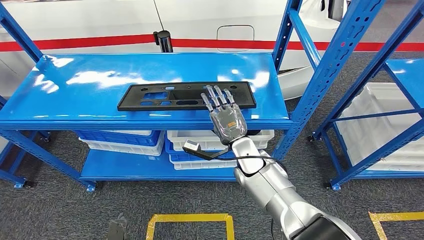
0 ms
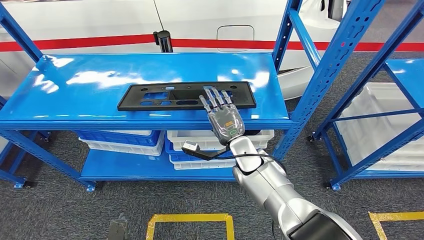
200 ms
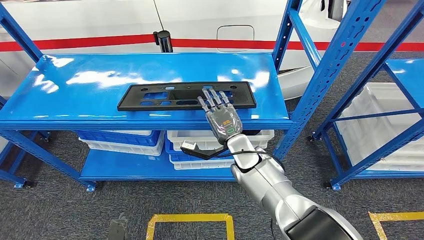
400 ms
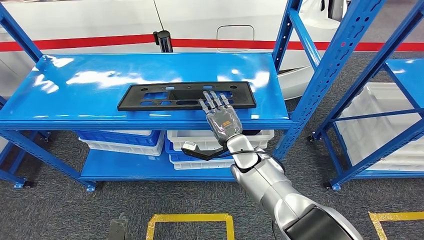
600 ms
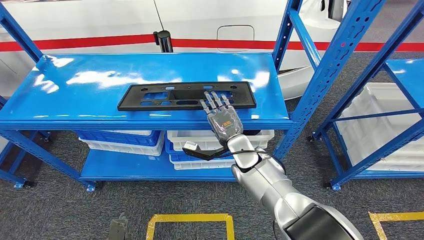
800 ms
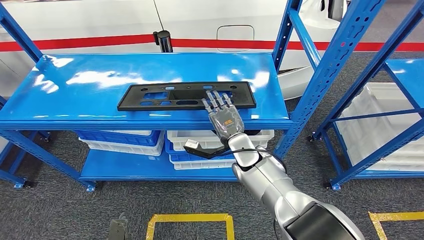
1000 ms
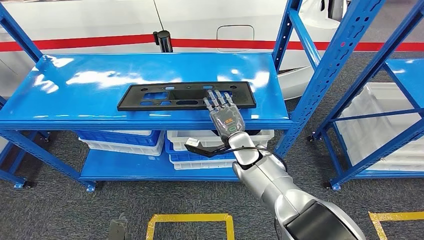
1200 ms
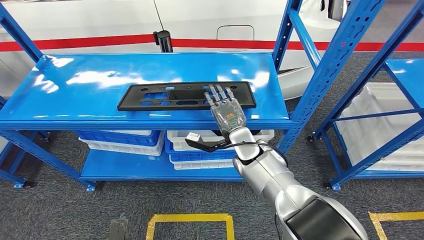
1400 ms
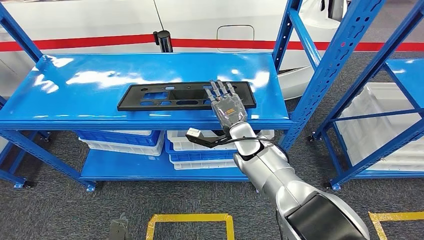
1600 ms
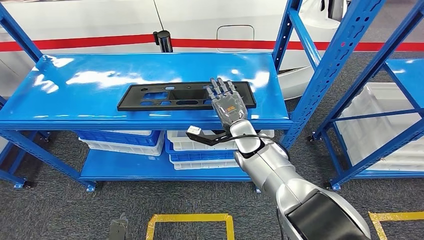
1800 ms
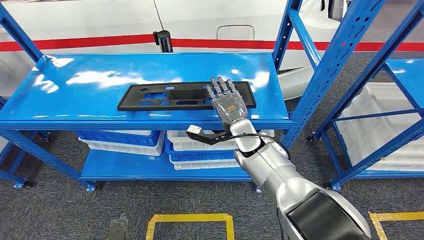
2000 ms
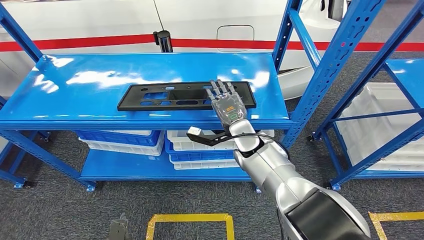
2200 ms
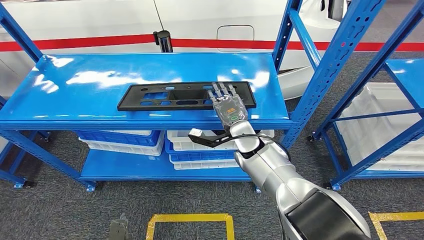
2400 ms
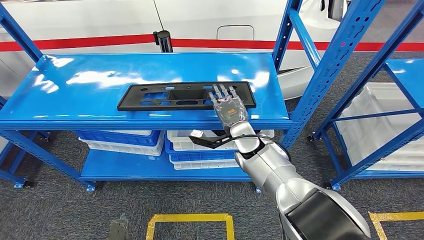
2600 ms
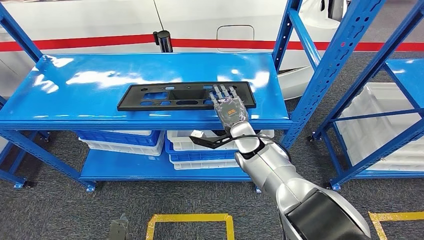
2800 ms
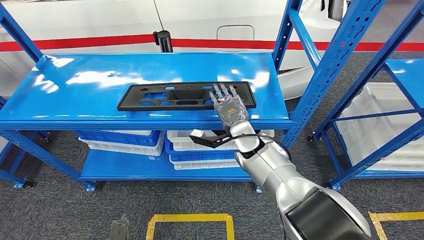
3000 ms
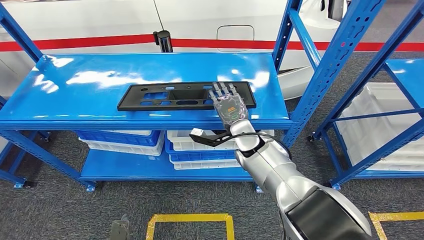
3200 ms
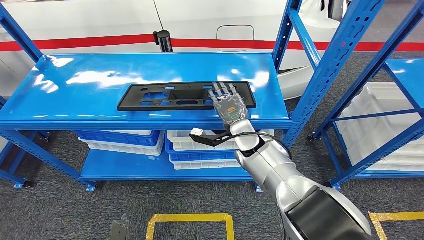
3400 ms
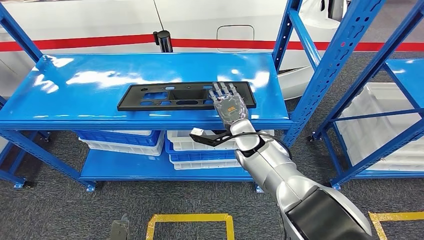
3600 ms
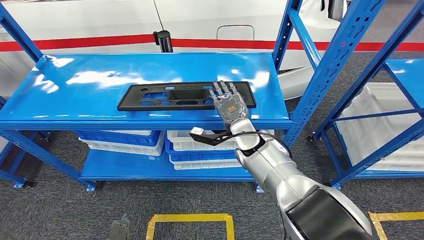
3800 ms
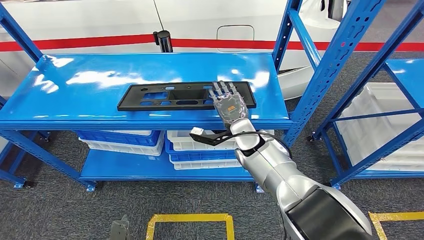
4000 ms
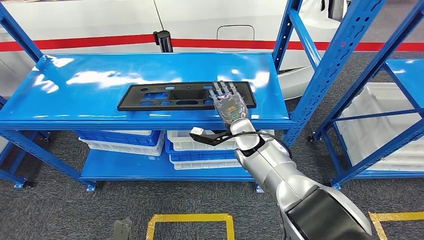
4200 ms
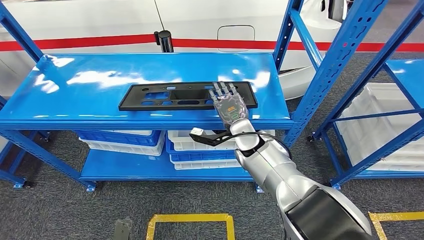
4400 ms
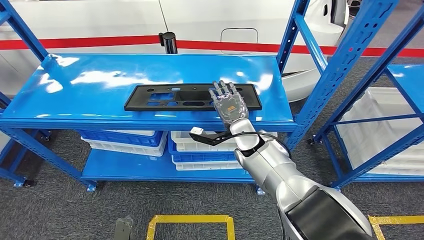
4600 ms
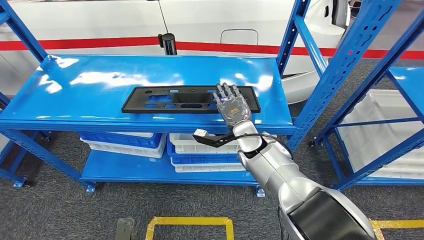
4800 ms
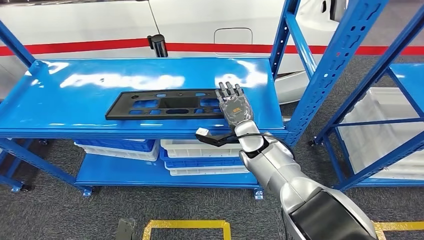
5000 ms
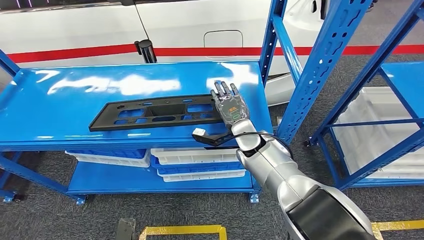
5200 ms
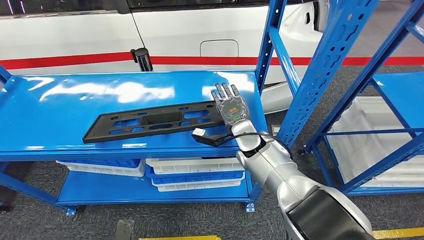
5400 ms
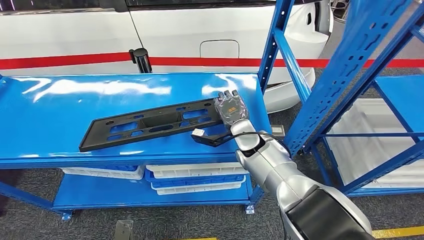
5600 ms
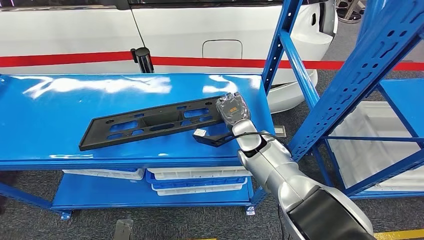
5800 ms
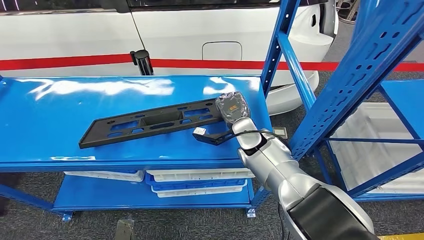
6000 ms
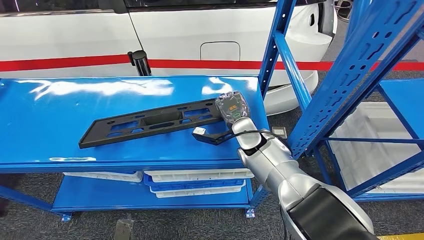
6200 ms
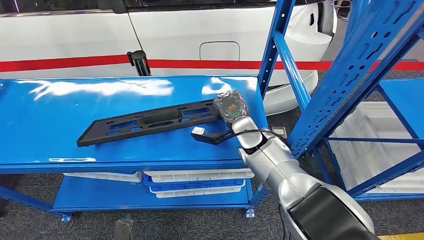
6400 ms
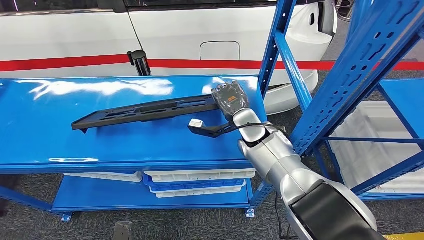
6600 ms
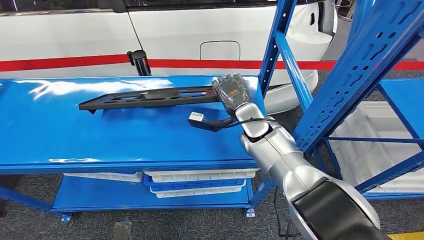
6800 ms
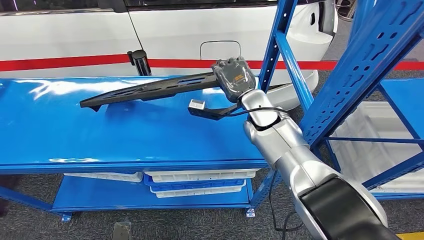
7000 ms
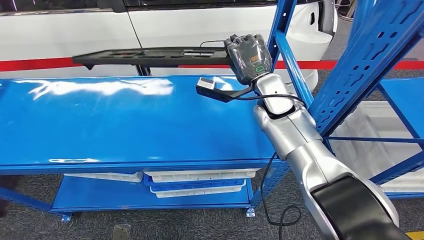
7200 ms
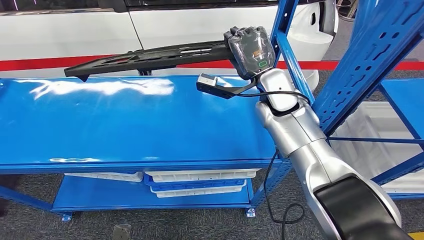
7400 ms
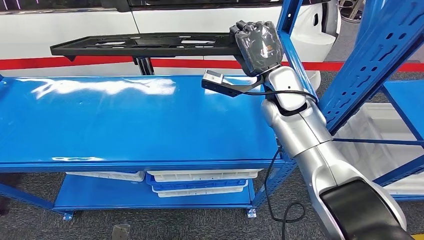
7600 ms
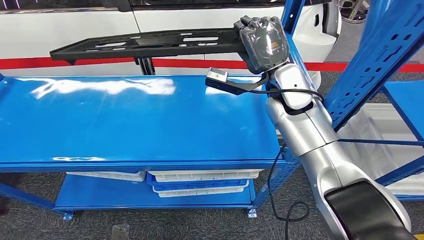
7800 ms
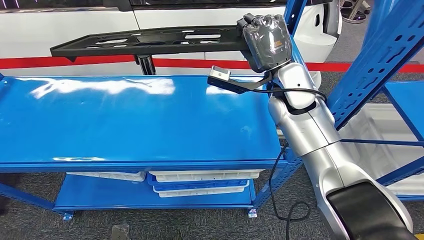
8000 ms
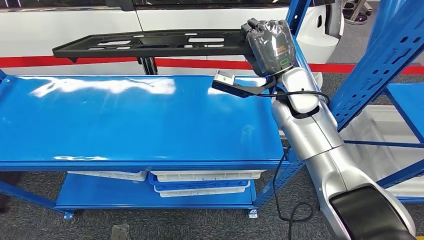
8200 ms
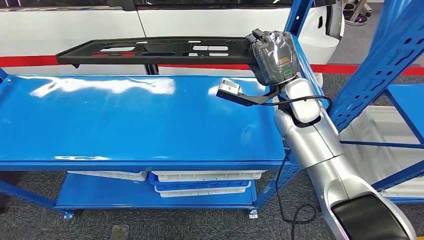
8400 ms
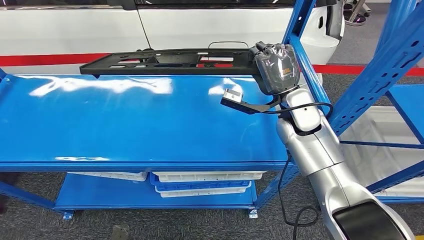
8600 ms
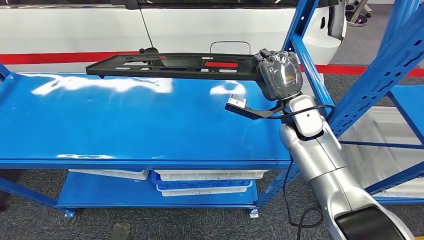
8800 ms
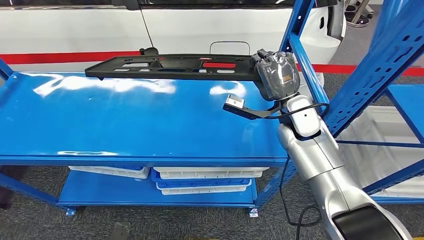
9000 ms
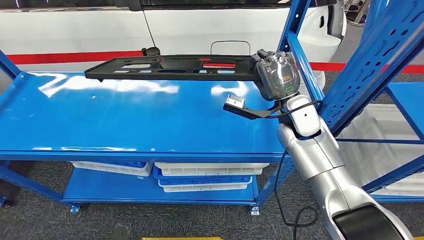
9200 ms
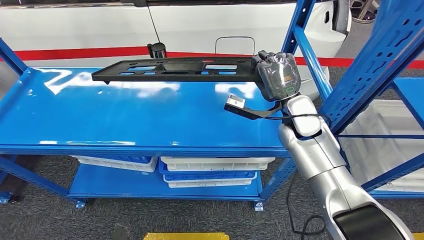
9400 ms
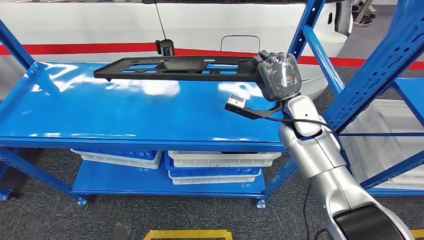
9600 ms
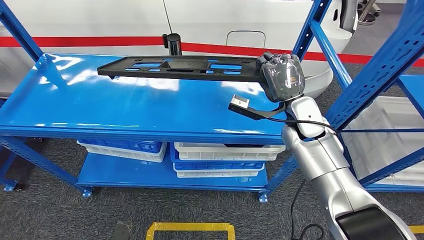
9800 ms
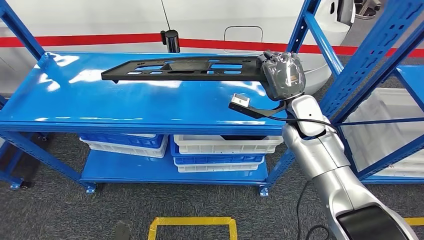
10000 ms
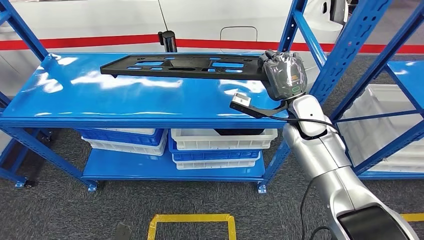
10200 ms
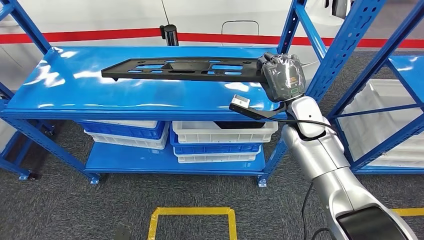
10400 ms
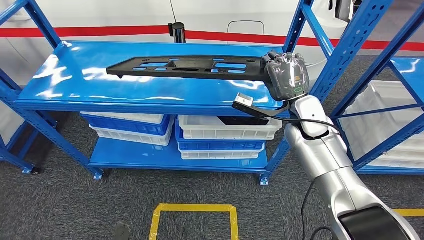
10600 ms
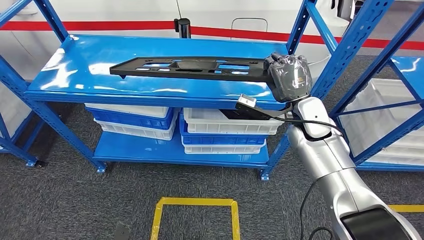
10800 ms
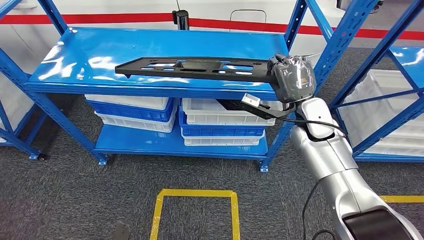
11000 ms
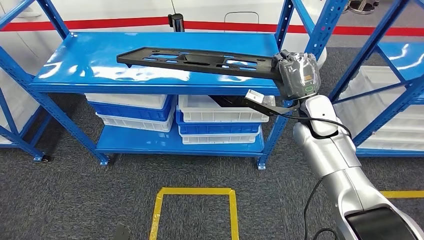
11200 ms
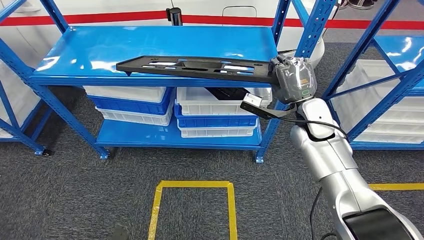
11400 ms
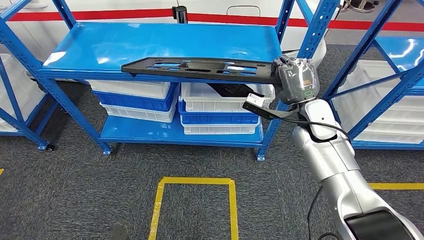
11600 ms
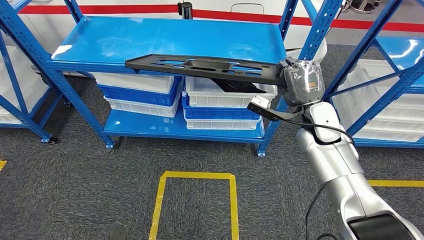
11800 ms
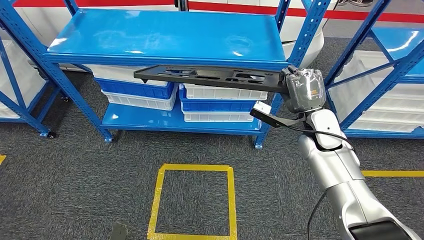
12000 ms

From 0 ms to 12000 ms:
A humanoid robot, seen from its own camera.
Step, from 0 ms to 10800 ms: Pick up the large material from the shelf.
From 0 ms to 1600 ms: The hands make only small movements.
From 1600 ms to 3000 ms: The hands make only small movements.
From 3000 ms to 4400 ms: Neither hand changes place.

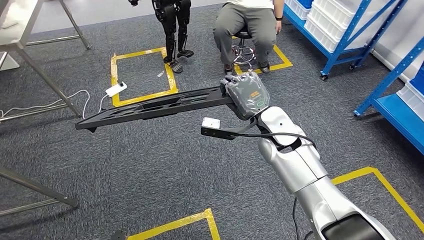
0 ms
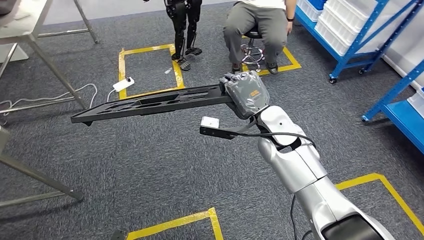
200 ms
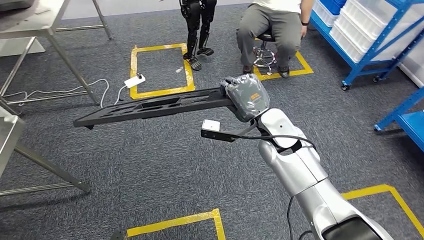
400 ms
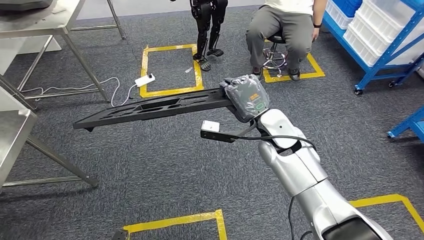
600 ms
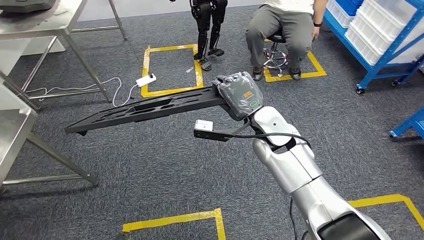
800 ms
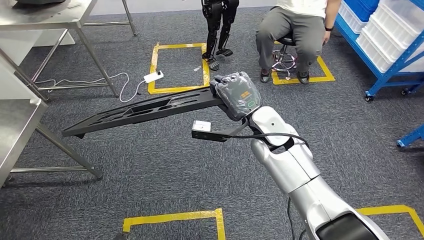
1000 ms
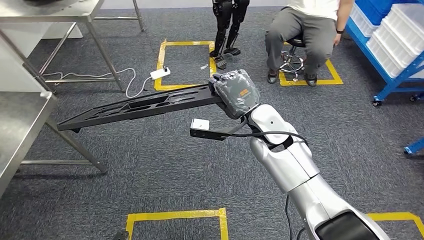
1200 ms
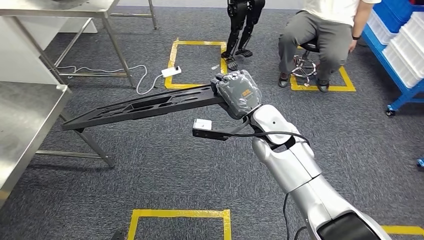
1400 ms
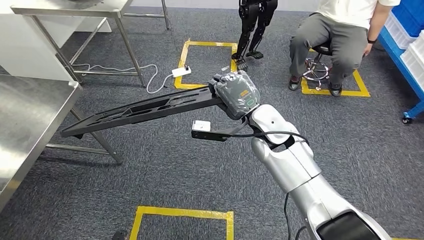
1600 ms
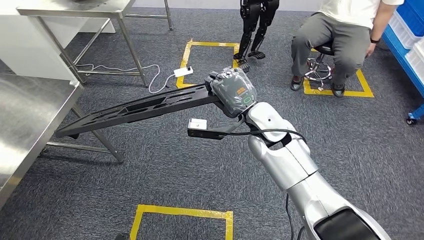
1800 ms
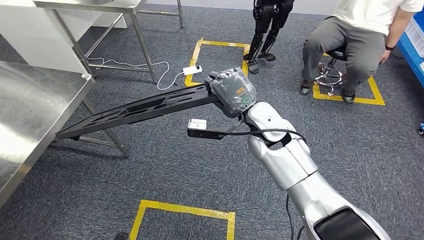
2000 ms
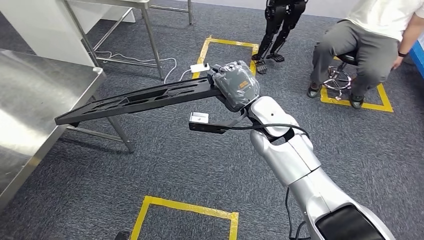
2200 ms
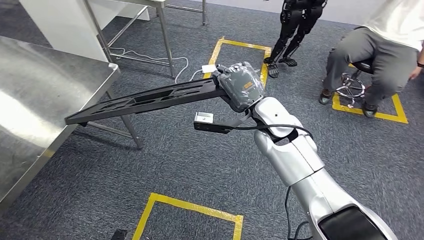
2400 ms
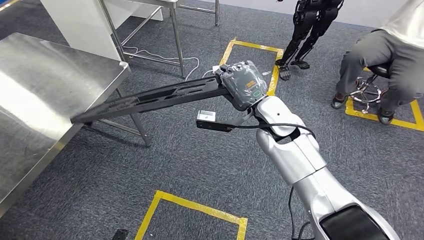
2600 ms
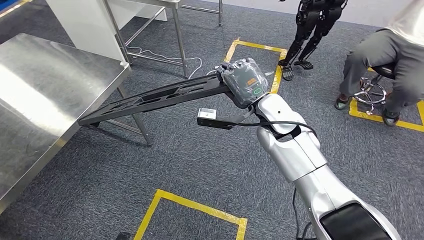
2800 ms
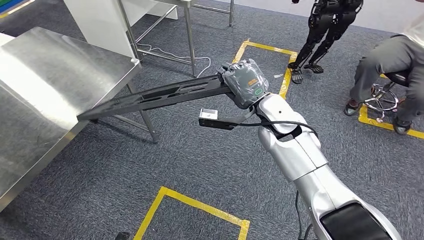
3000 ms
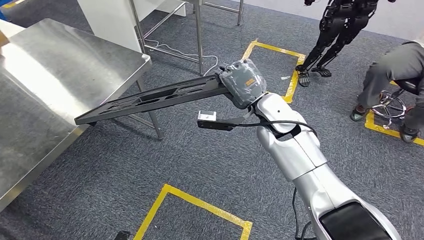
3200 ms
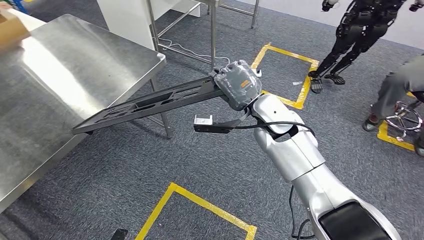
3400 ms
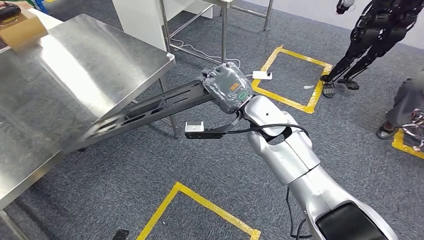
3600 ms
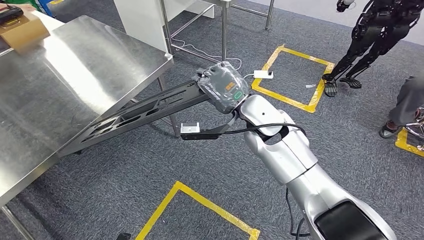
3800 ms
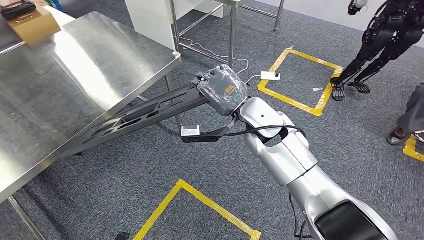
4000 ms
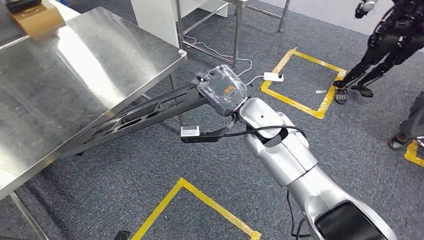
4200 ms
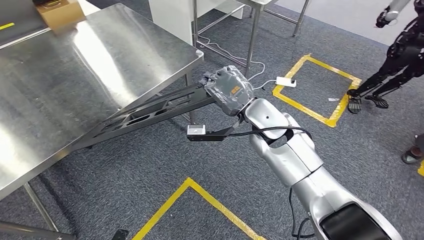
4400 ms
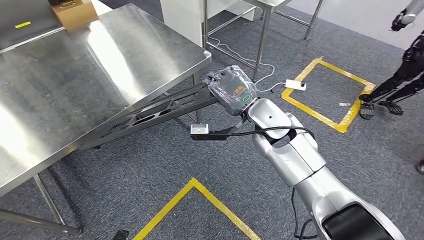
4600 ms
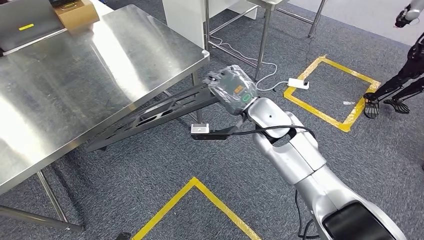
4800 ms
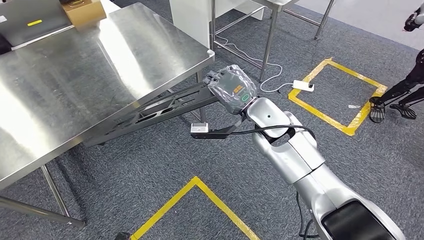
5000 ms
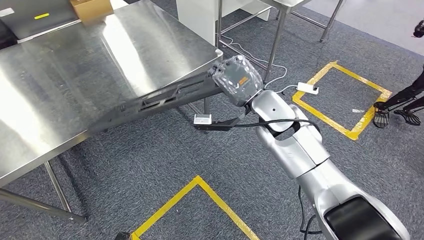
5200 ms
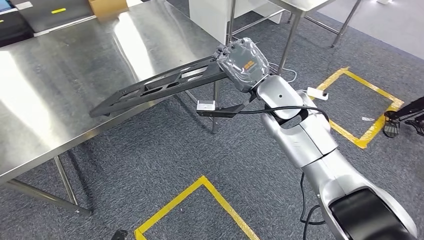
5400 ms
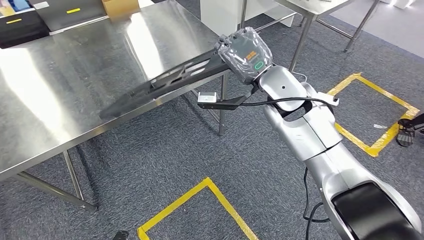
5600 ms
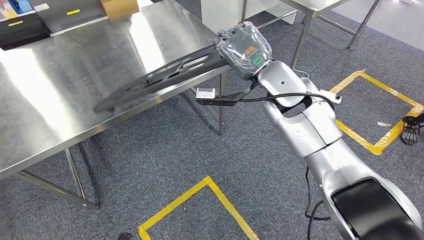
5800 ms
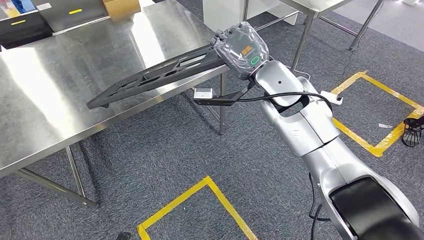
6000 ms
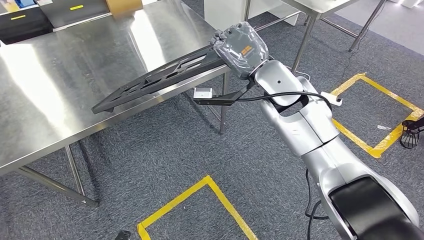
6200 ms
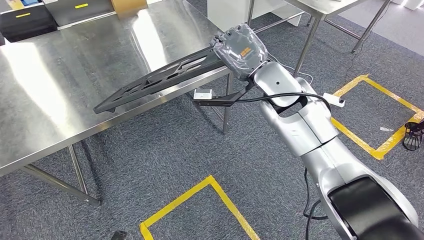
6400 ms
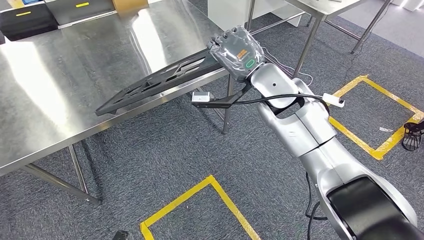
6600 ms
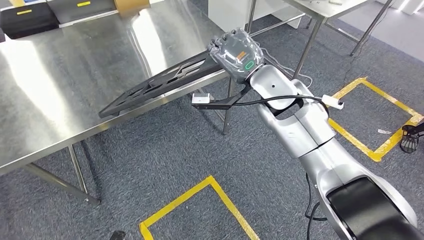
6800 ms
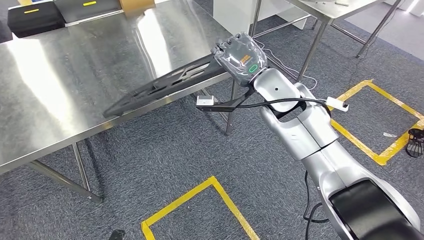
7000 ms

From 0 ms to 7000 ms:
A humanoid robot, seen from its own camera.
Step, from 0 ms to 4400 ms: Move the large material to the front of the workbench.
